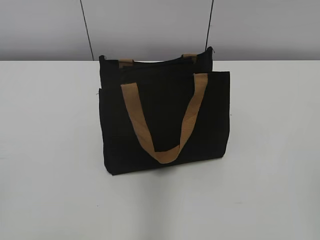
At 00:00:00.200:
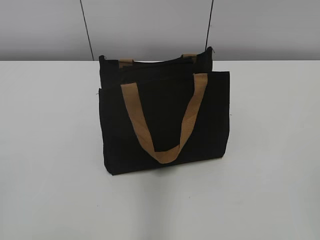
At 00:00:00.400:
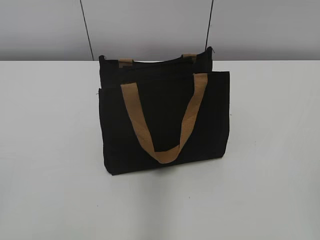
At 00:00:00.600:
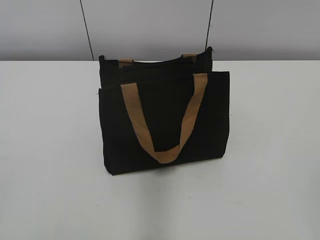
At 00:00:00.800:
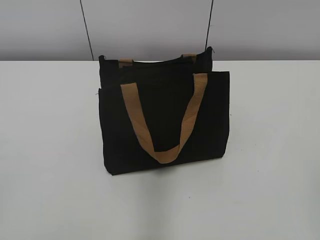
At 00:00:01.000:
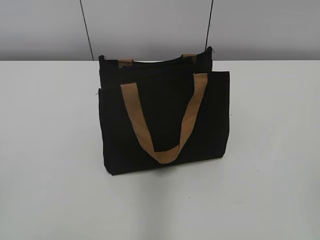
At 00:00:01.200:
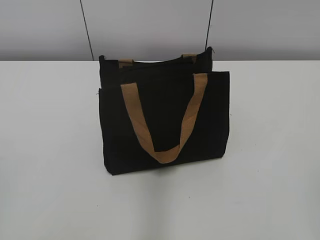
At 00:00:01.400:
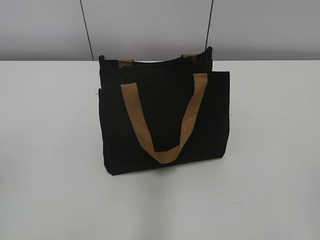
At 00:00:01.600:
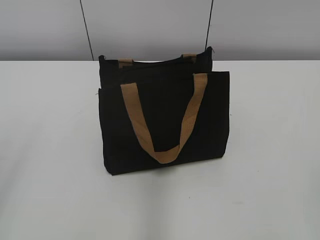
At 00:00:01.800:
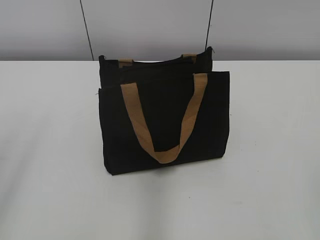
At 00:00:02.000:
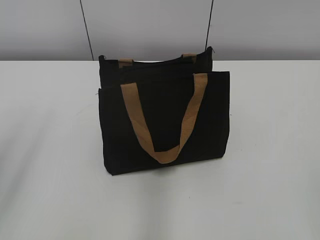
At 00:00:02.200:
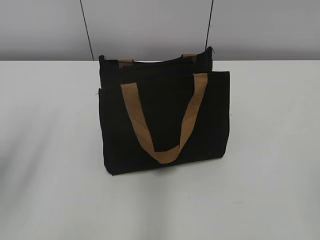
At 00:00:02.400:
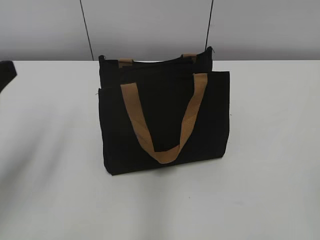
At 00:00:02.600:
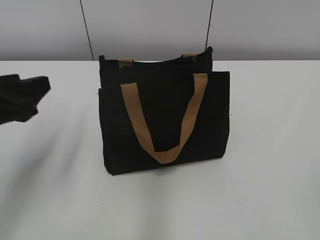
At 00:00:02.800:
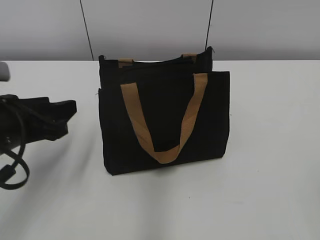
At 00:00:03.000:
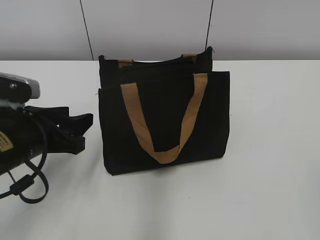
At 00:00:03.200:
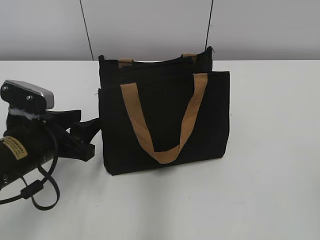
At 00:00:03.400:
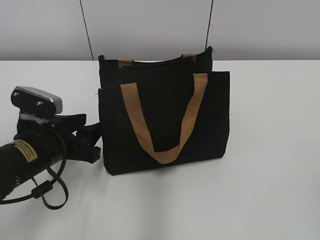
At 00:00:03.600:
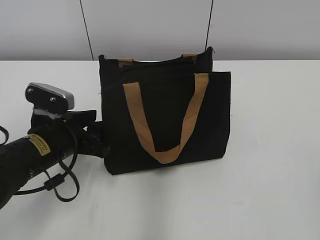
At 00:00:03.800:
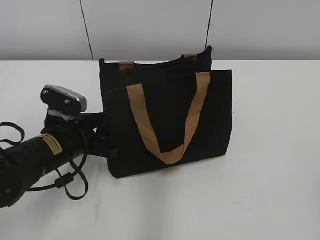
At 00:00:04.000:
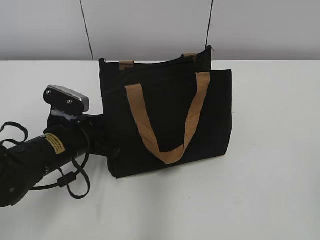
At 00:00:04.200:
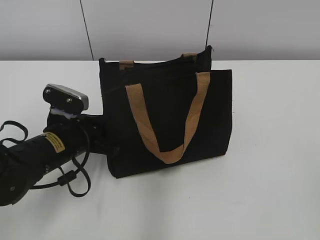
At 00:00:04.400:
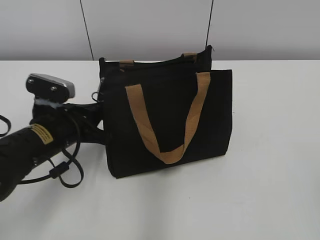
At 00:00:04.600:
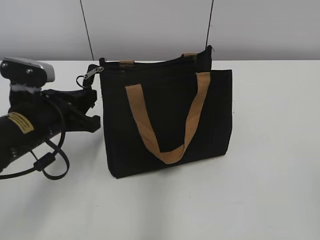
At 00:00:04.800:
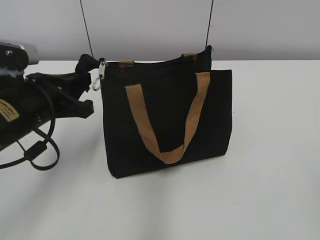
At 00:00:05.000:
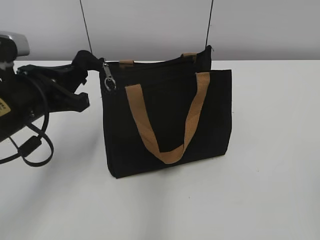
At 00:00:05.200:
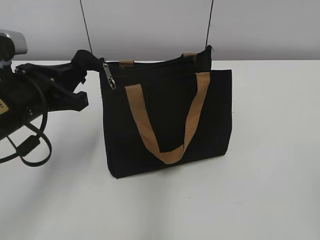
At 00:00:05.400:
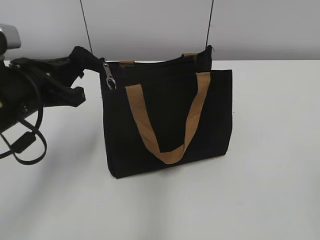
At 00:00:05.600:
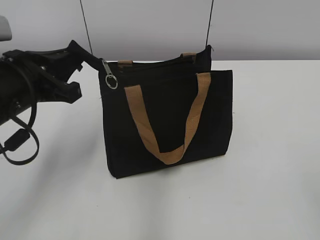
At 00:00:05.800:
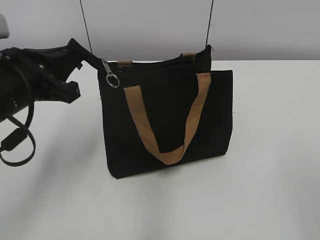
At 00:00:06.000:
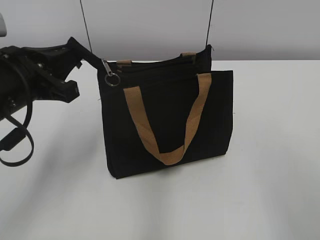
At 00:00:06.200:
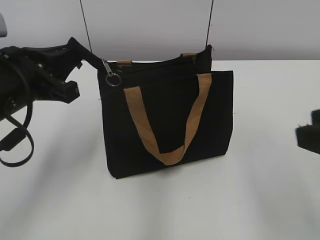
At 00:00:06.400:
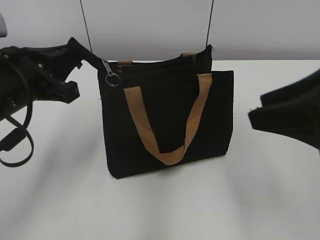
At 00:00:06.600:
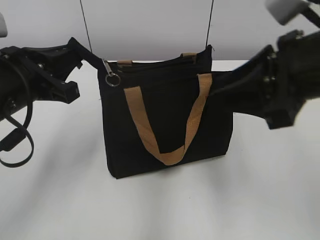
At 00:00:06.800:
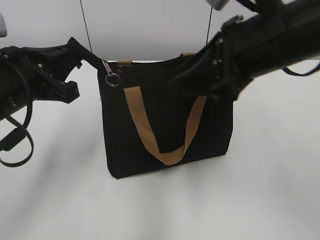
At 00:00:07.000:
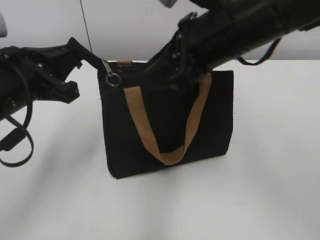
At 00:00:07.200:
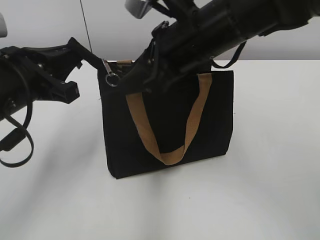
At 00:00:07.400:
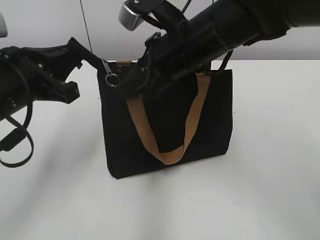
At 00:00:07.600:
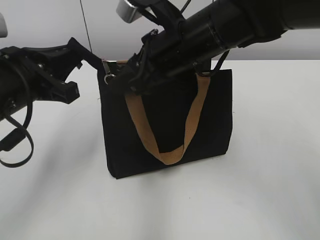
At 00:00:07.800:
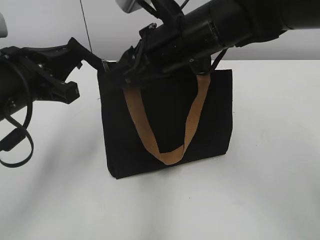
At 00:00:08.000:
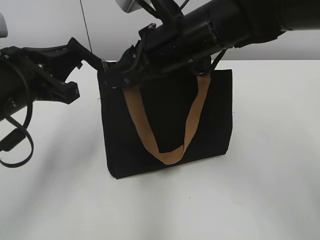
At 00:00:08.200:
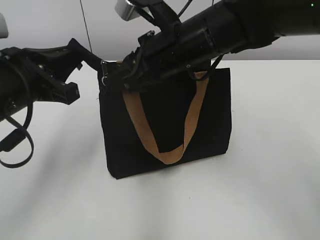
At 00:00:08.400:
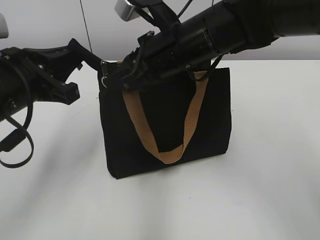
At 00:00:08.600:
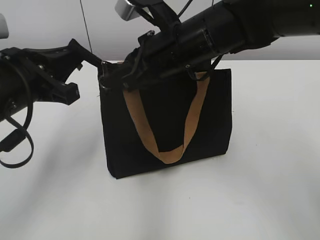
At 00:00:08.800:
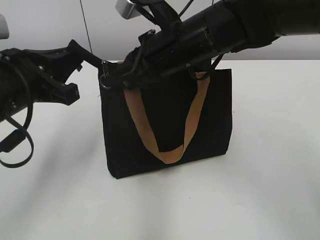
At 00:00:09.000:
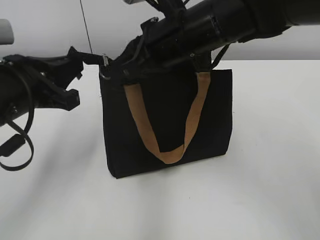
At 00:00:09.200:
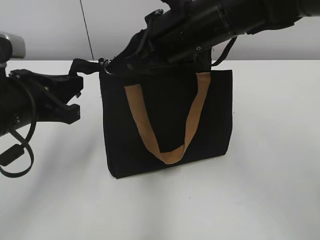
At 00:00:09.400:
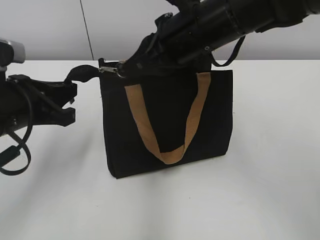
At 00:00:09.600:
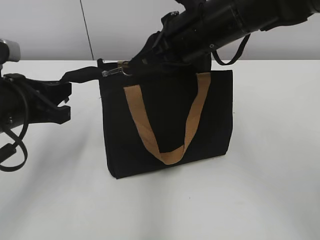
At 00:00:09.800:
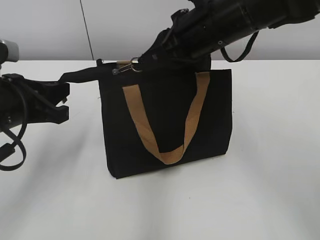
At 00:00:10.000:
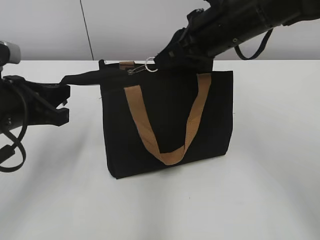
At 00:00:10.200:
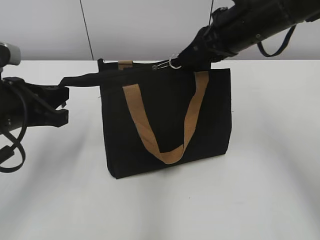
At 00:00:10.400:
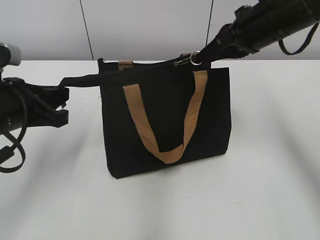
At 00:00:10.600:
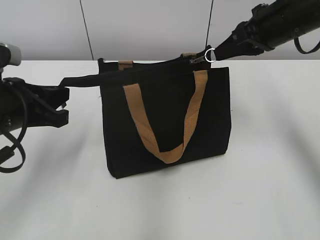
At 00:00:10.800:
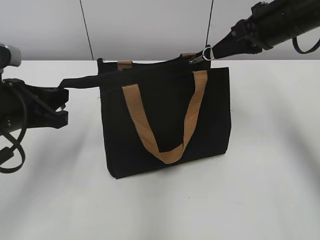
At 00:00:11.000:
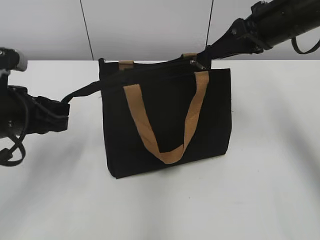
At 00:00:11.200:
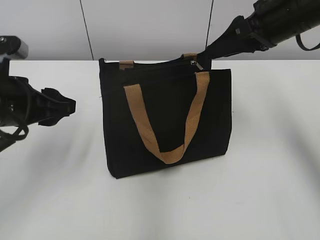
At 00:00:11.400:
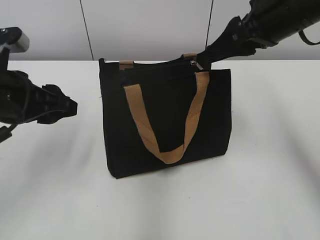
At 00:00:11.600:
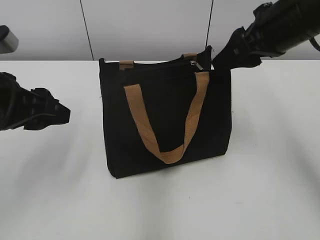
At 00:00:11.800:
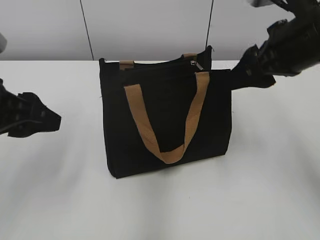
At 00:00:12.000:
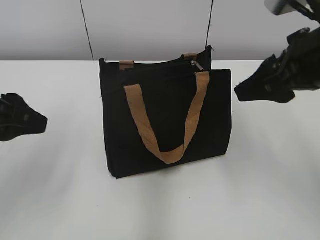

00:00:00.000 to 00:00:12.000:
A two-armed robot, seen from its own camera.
Step, 00:00:00.000 to 00:00:10.800: Zip up the bag with your right hand.
00:00:01.600 to 00:00:03.000: The left gripper moves downward, forward and to the right, about 25 cm.
00:00:03.000 to 00:00:04.400: The left gripper ends up about 5 cm from where it was, and closes.
00:00:04.400 to 00:00:06.000: The right gripper heads forward, covering some 10 cm; the left gripper shifts about 10 cm upward.
00:00:06.000 to 00:00:07.600: The right gripper goes approximately 30 cm forward and to the left.
00:00:07.600 to 00:00:09.000: The right gripper closes its fingers.
00:00:09.000 to 00:00:10.400: The right gripper goes about 15 cm to the right.
00:00:10.400 to 00:00:12.000: The left gripper goes approximately 5 cm upward, and opens its fingers. The right gripper heads backward, covering approximately 10 cm, and opens its fingers.

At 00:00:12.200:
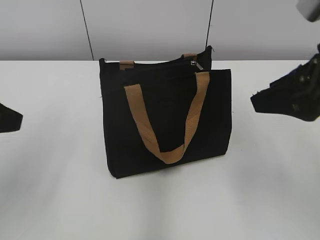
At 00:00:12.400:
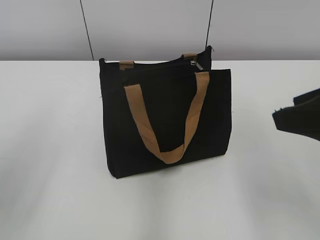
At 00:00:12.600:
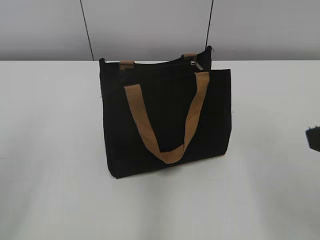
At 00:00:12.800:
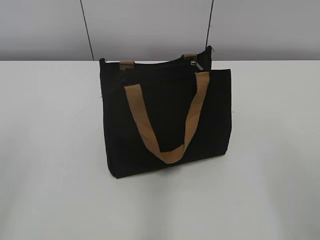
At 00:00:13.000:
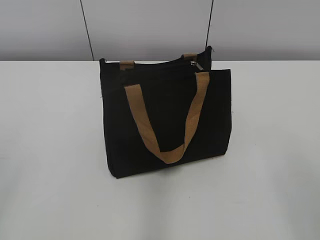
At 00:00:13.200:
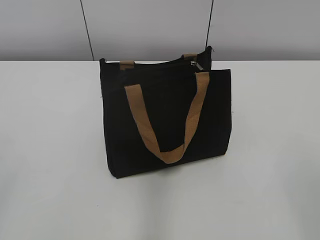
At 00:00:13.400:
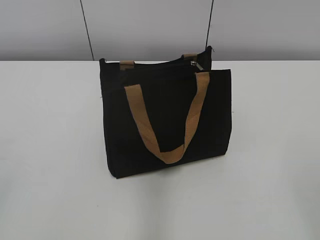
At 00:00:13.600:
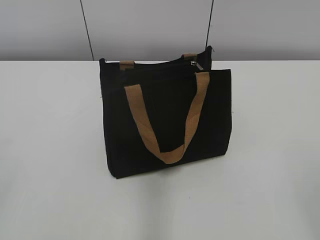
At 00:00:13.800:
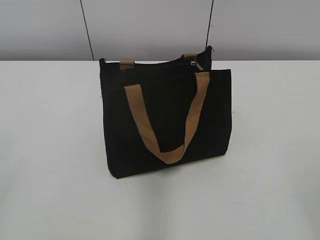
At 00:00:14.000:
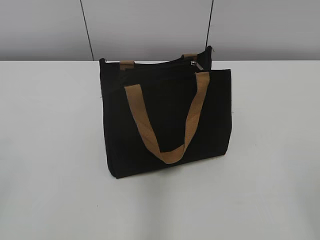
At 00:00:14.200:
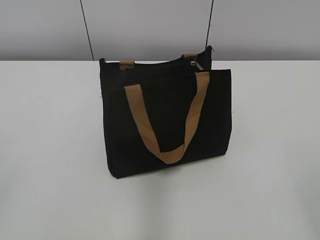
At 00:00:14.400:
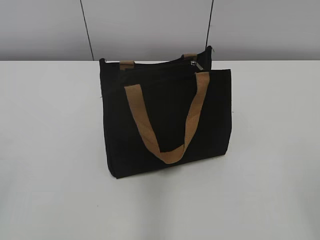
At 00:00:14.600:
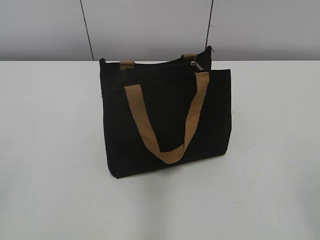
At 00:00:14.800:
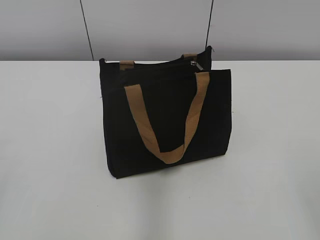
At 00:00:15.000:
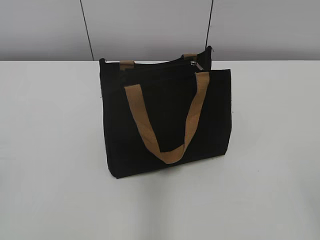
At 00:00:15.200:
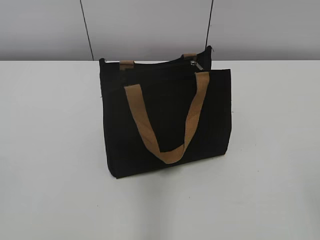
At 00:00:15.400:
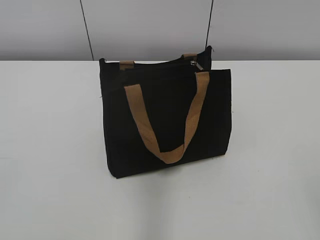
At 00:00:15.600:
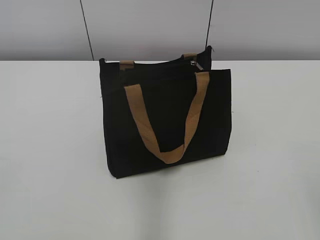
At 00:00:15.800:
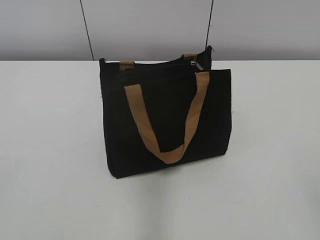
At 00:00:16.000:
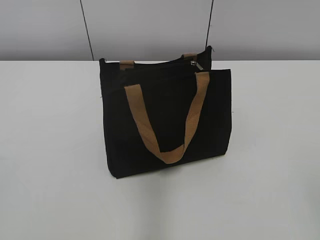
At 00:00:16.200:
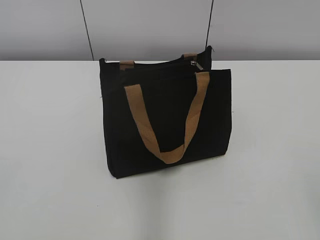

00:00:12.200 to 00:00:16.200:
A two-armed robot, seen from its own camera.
00:00:12.200 to 00:00:13.600: The left gripper heads backward and to the left, covering roughly 20 cm; the right gripper is displaced backward by approximately 20 cm.
00:00:13.600 to 00:00:14.800: The two grippers keep their place.
